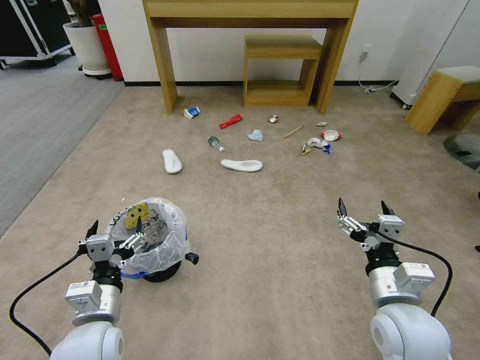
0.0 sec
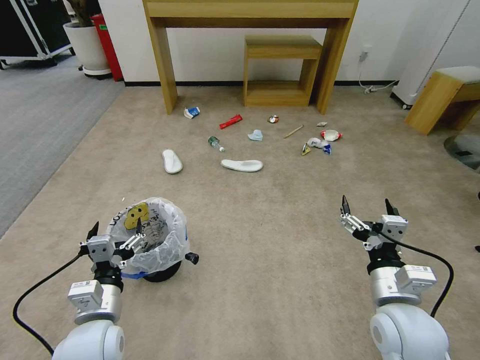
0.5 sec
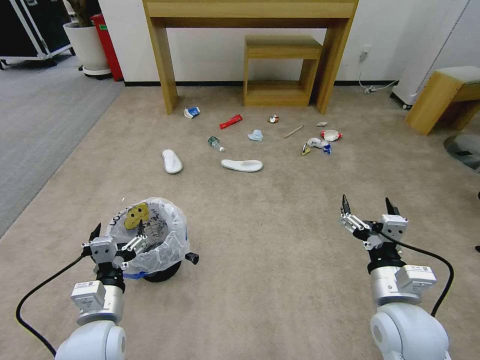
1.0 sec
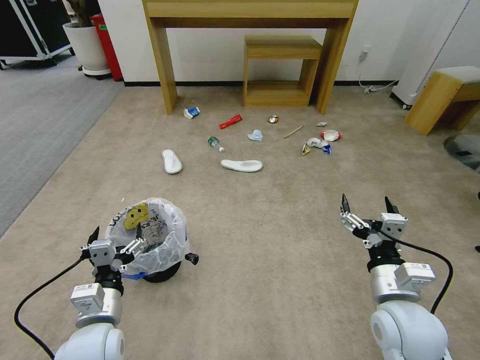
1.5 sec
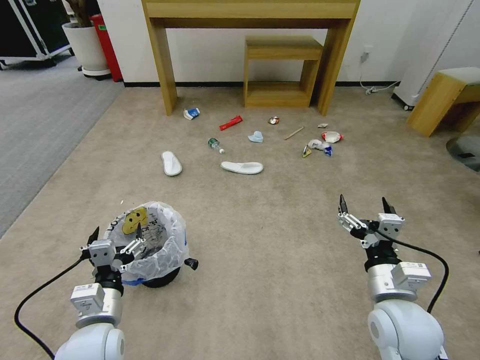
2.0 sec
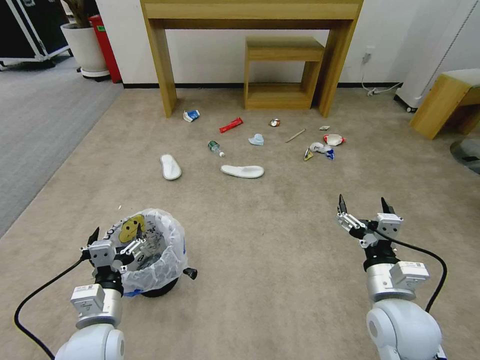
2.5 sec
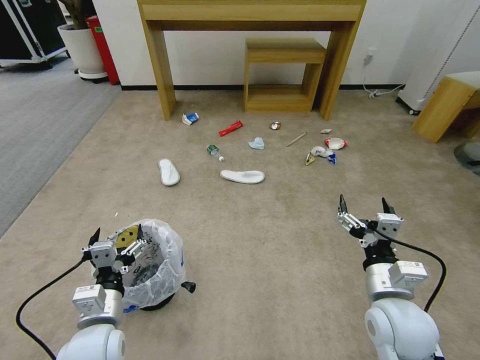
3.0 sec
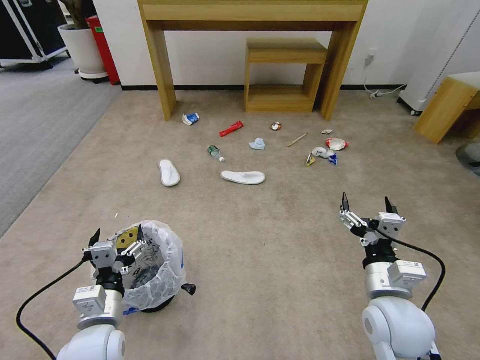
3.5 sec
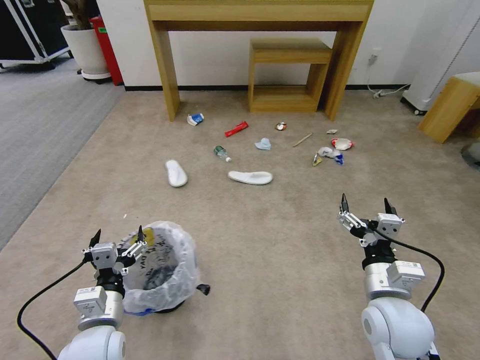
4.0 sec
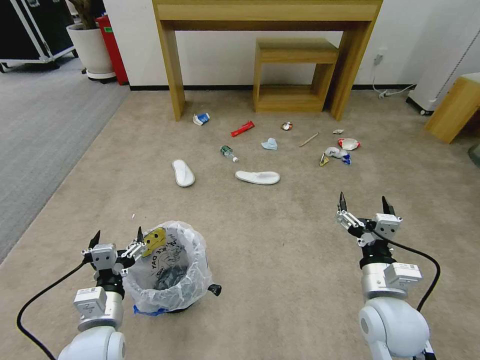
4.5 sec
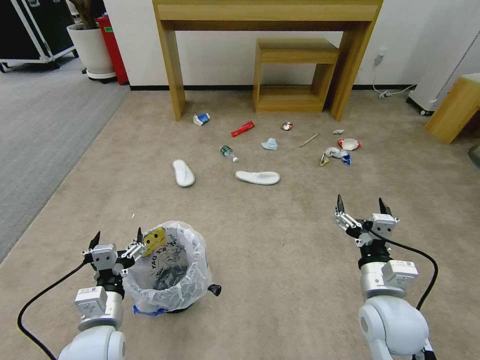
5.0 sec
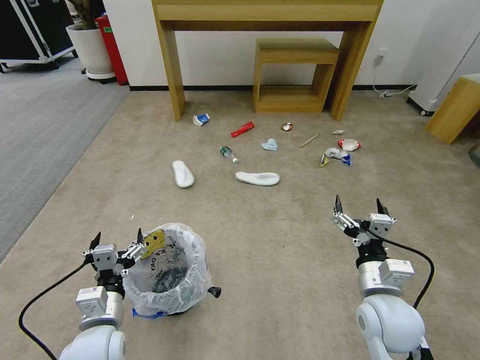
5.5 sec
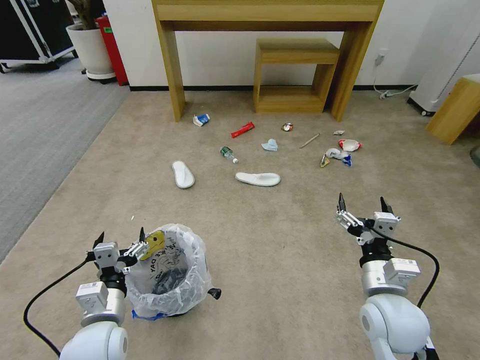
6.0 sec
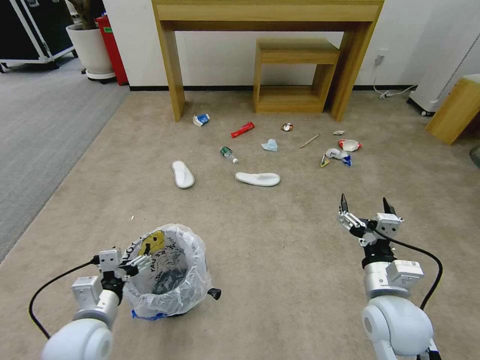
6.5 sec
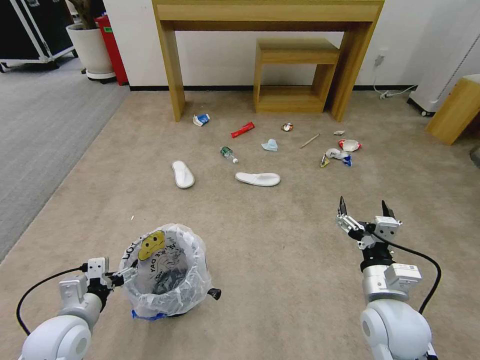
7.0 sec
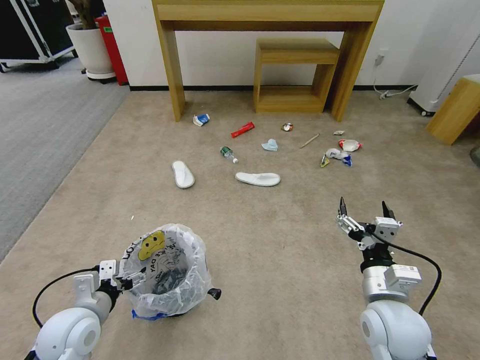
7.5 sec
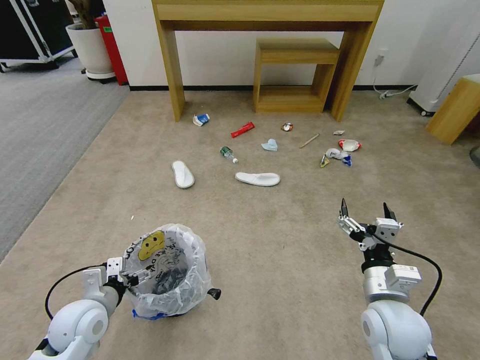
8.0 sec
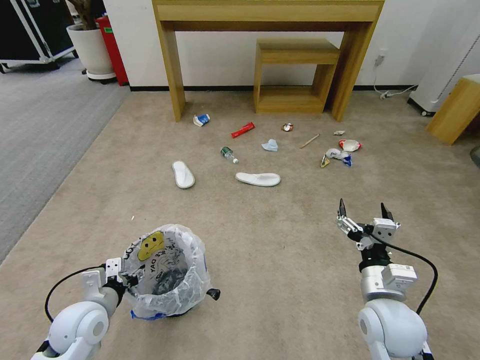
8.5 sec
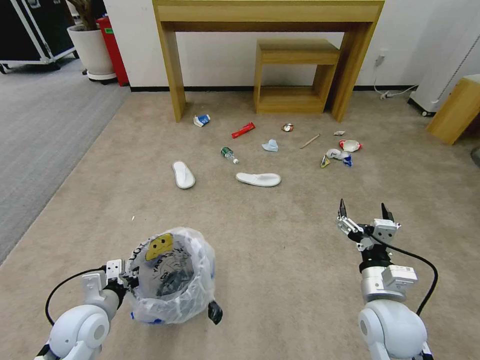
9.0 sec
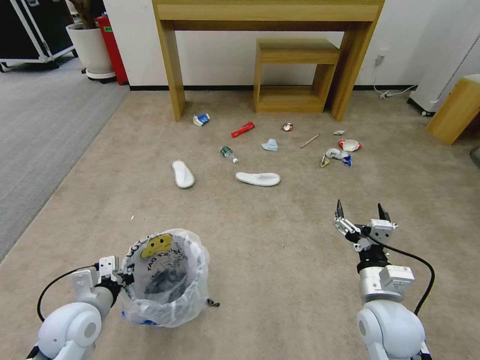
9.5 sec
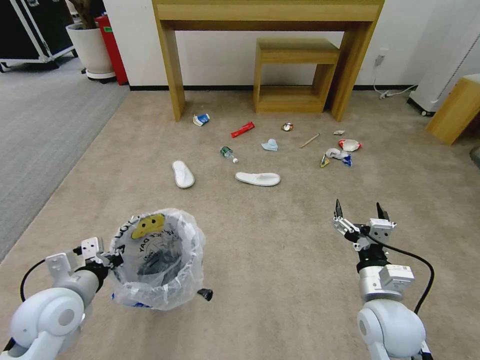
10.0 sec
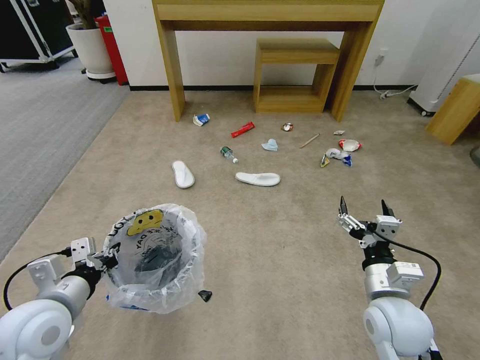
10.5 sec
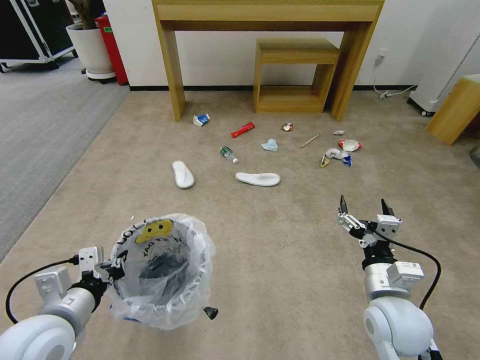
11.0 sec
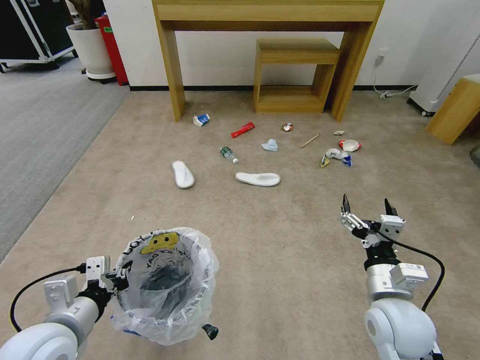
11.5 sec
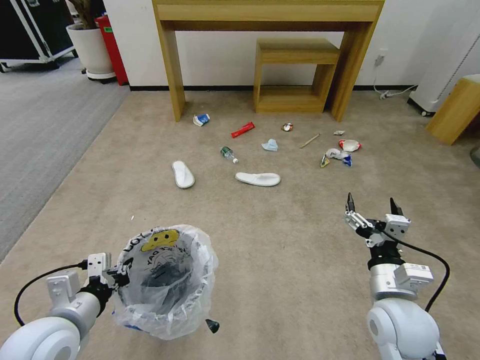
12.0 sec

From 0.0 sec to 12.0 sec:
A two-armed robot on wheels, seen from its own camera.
Task of the whole recording: Pick up the trash bin and place the garbage on the floor into it.
From 2.0 sec to 4.0 sec: The two grippers keep their place.
From 4.0 sec to 6.0 sec: The grippers stay close to where they were, moving slightly.
From 6.0 sec to 8.0 sec: The left gripper travels to the left and forward by approximately 10 cm.
From 8.0 sec to 10.0 sec: The left gripper shifts some 5 cm upward, and closes.
From 10.0 sec to 12.0 sec: The left gripper heads backward, covering some 5 cm.

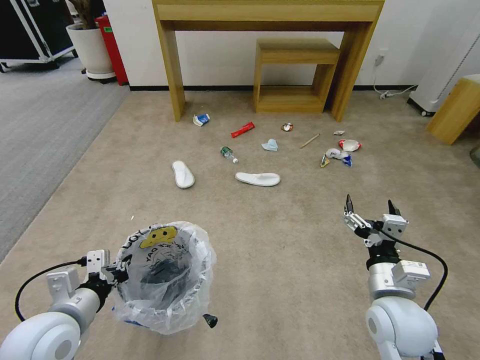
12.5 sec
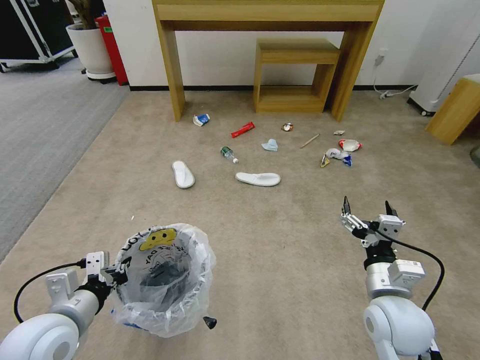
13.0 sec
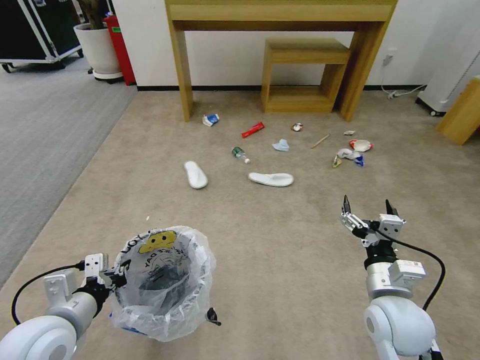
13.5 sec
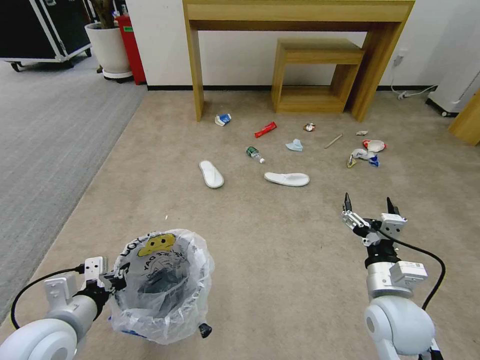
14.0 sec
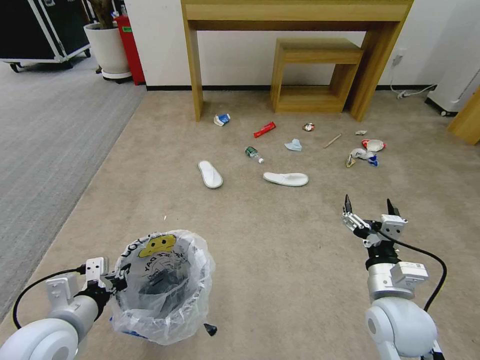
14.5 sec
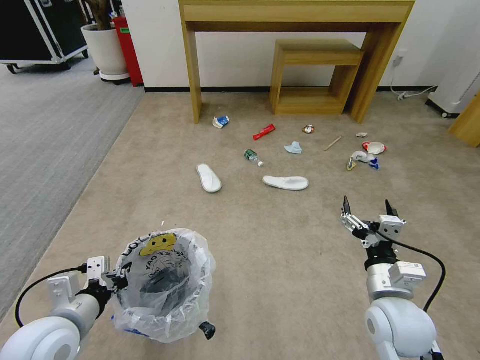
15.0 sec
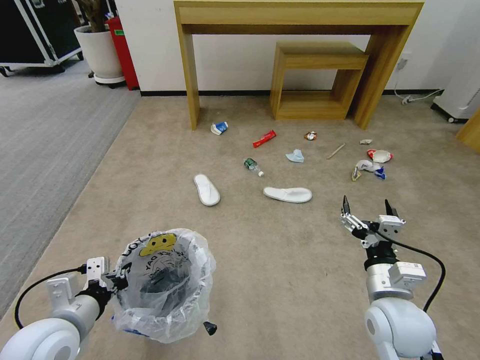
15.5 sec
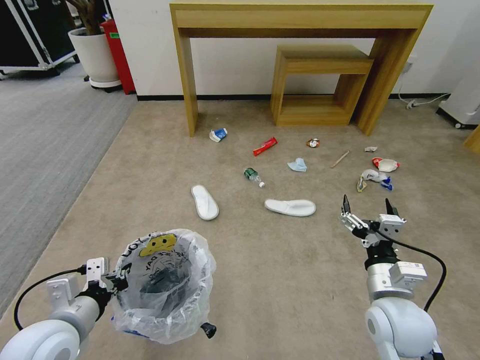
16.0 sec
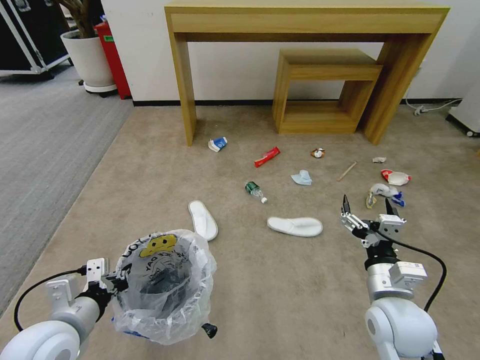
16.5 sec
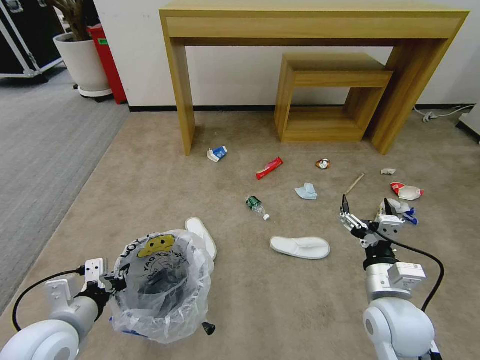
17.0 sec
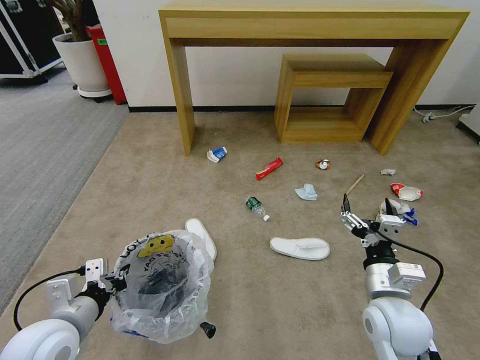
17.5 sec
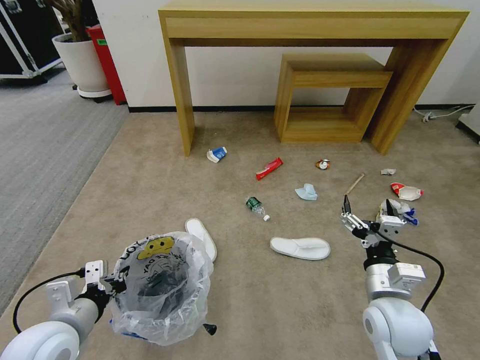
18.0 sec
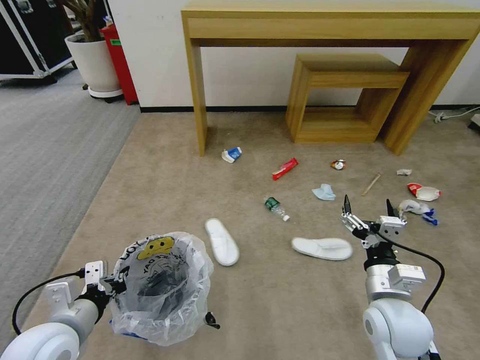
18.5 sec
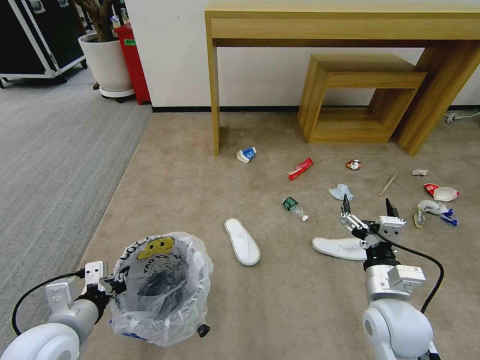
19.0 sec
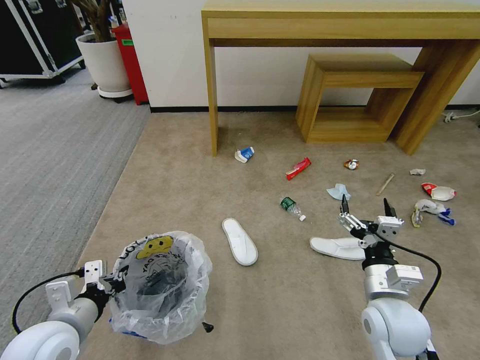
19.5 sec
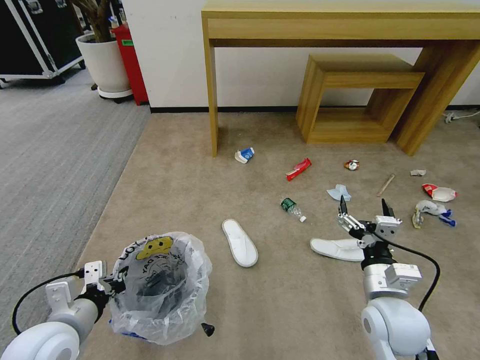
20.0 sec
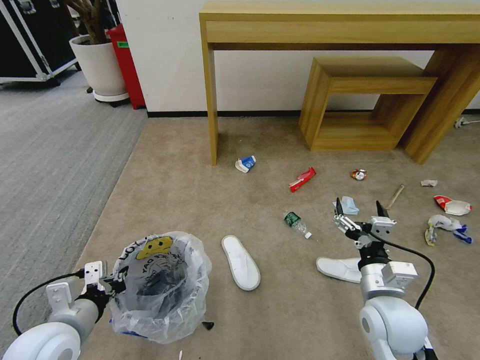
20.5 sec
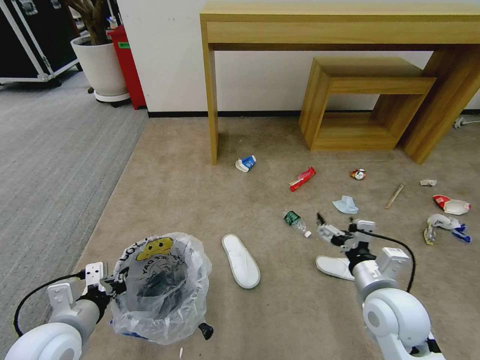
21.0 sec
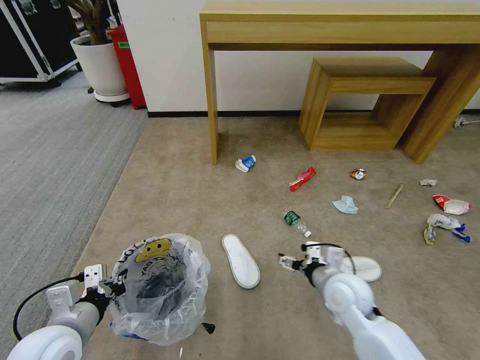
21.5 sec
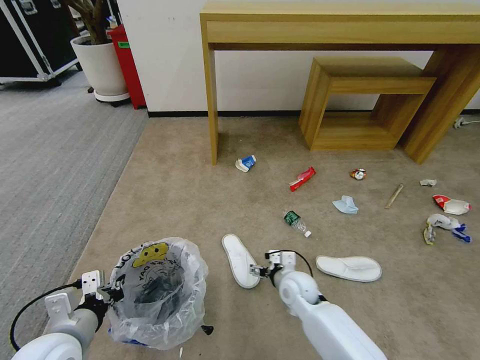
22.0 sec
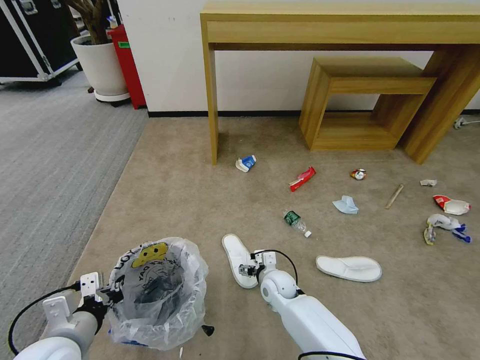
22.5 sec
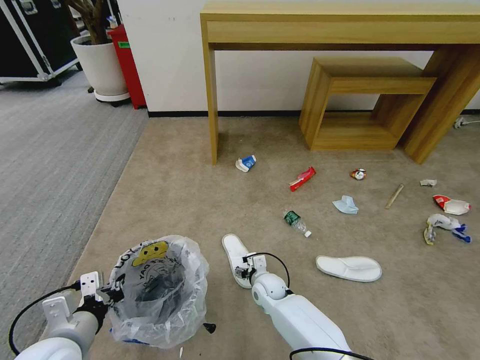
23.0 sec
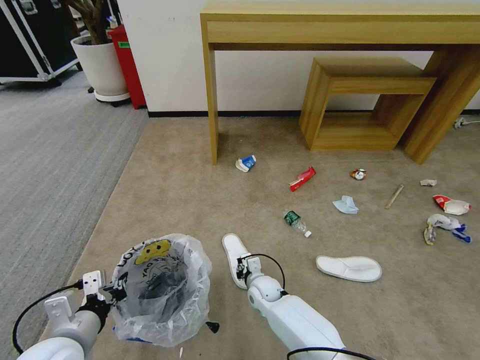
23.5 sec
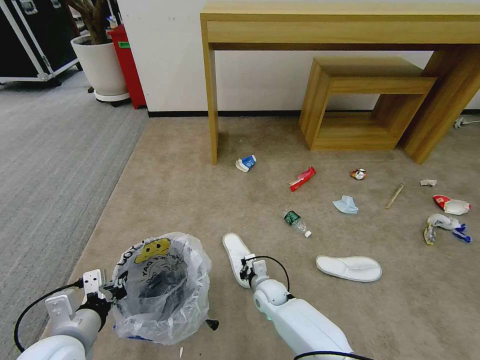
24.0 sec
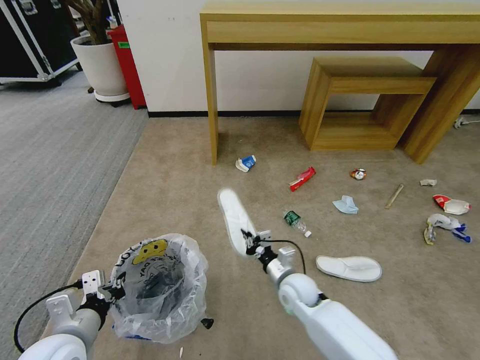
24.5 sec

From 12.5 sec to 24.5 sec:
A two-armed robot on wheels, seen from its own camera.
Task of the whole recording: Pick up the trash bin and place the garbage on the floor into it.
From 12.5 sec to 14.5 sec: Neither gripper changes place.
From 20.5 sec to 22.5 sec: The right gripper shifts some 30 cm downward, to the left and forward.
From 22.5 sec to 24.5 sec: The right gripper changes place by roughly 5 cm, and closes.

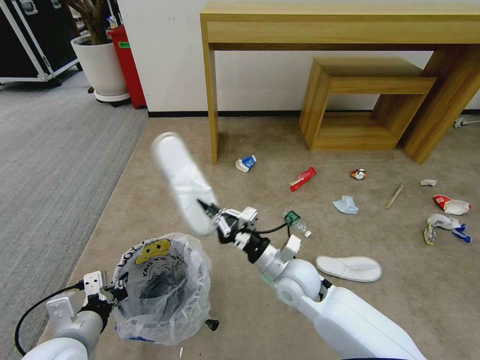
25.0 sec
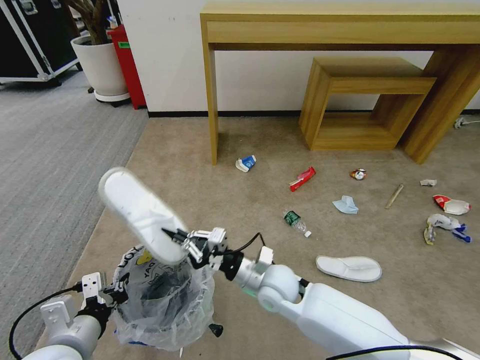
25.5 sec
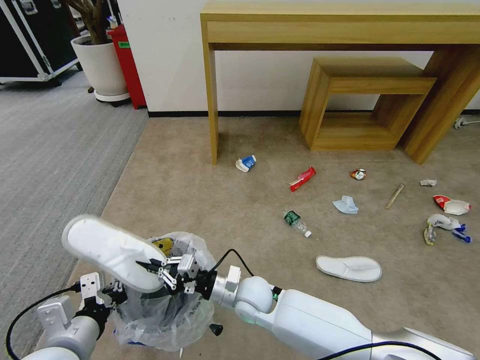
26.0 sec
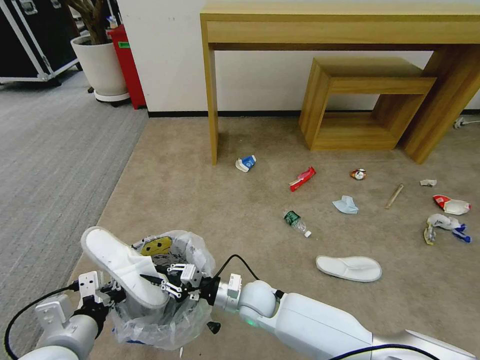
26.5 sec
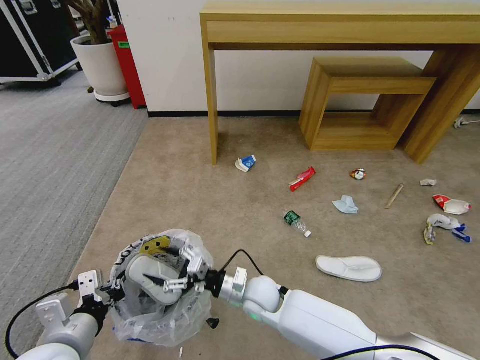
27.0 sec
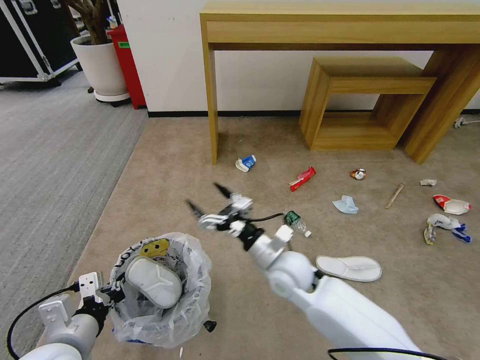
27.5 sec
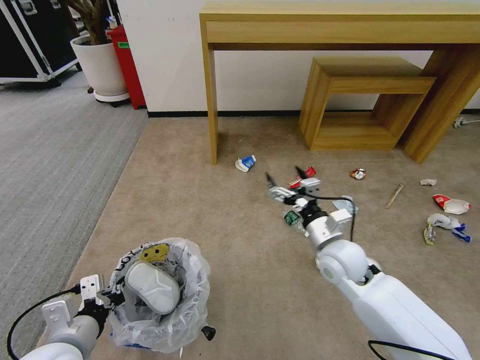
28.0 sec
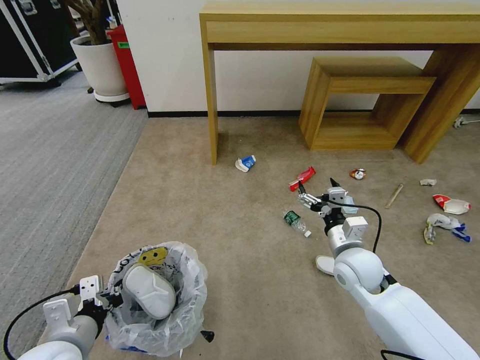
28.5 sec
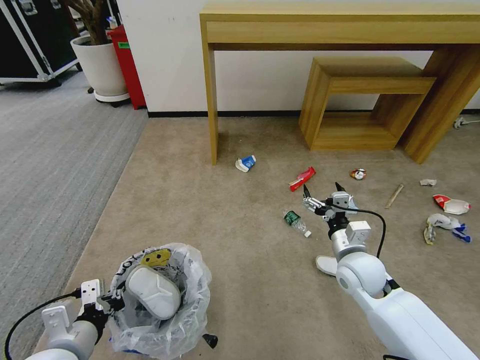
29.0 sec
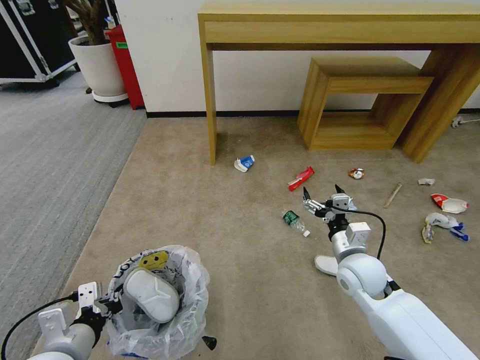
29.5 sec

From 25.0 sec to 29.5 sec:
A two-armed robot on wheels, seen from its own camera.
Task of the whole recording: Pick up the trash bin and place the garbage on the floor into it.
From 25.0 sec to 27.0 sec: The right gripper travels downward and to the left by roughly 10 cm, and opens.
From 27.0 sec to 29.5 sec: The right gripper is displaced to the right and upward by roughly 25 cm.
